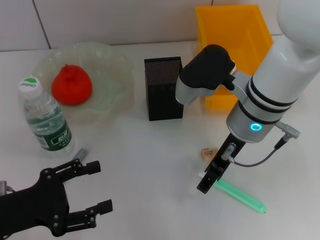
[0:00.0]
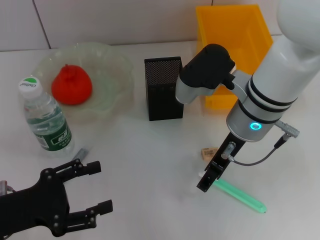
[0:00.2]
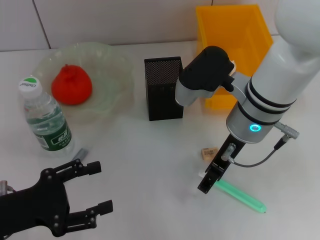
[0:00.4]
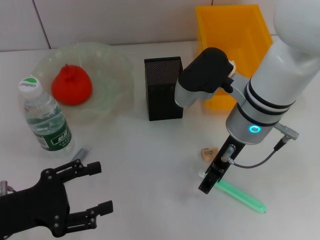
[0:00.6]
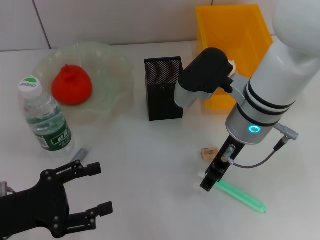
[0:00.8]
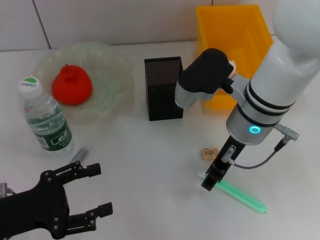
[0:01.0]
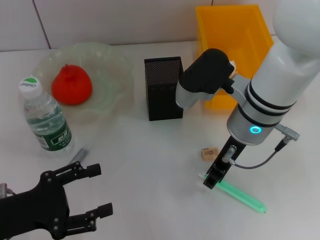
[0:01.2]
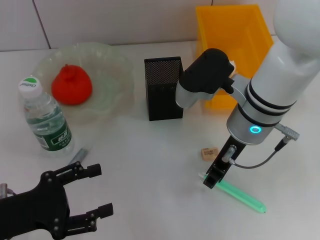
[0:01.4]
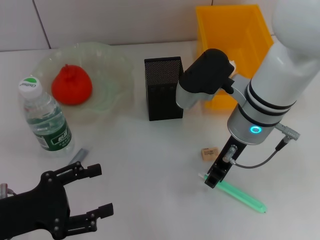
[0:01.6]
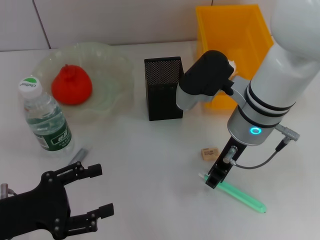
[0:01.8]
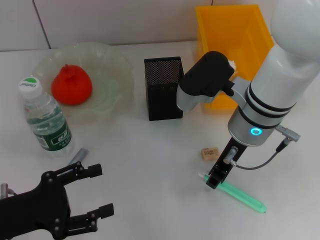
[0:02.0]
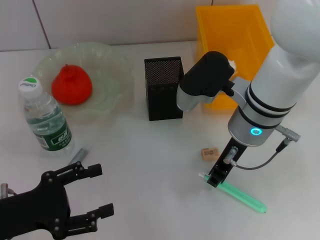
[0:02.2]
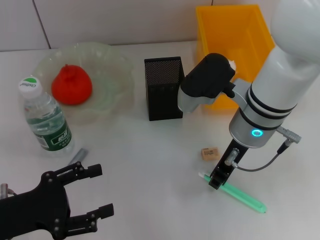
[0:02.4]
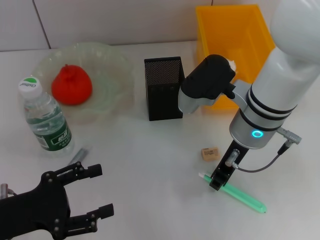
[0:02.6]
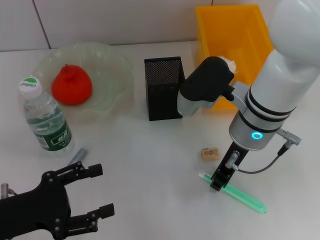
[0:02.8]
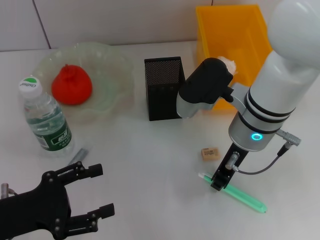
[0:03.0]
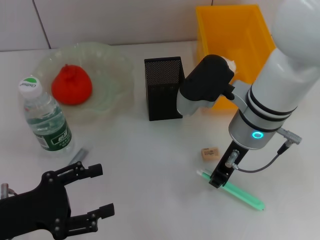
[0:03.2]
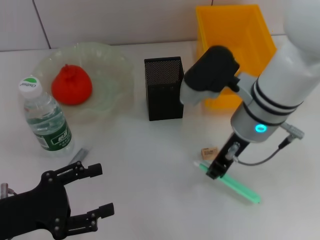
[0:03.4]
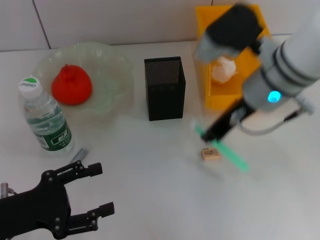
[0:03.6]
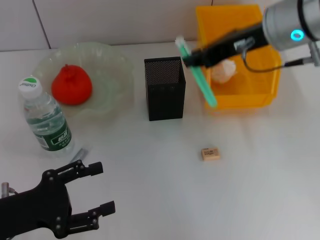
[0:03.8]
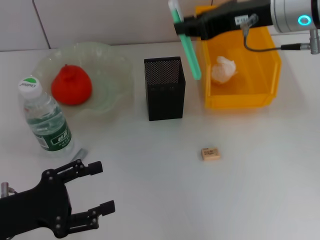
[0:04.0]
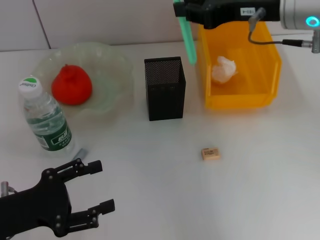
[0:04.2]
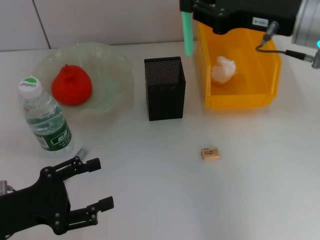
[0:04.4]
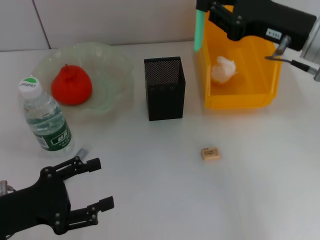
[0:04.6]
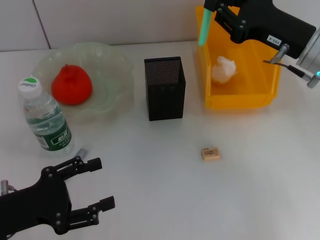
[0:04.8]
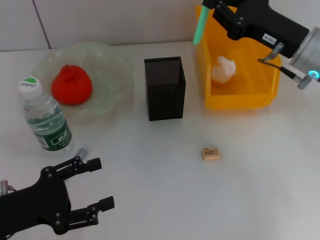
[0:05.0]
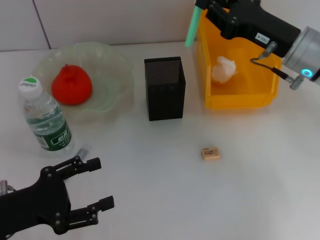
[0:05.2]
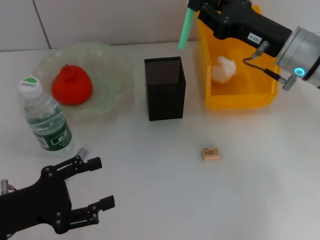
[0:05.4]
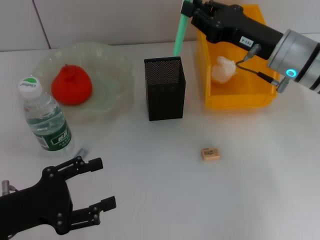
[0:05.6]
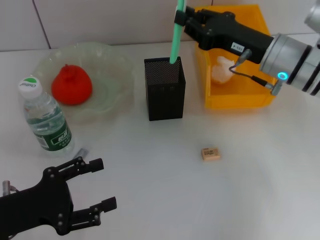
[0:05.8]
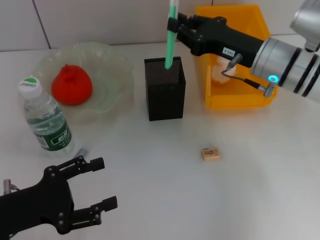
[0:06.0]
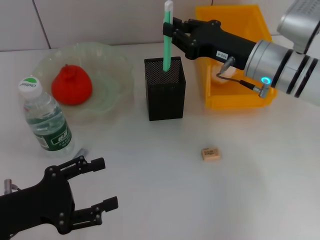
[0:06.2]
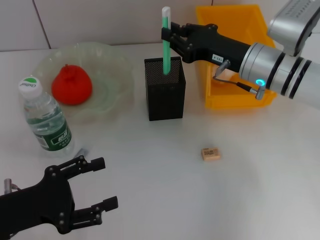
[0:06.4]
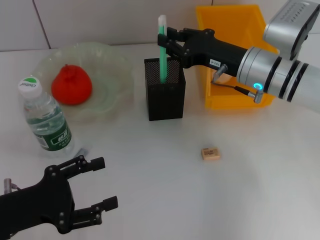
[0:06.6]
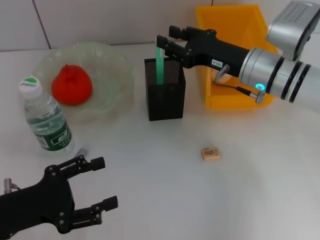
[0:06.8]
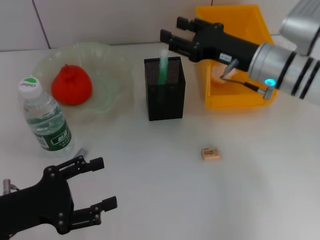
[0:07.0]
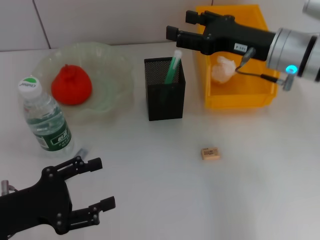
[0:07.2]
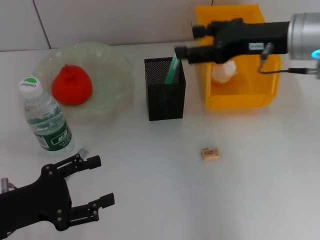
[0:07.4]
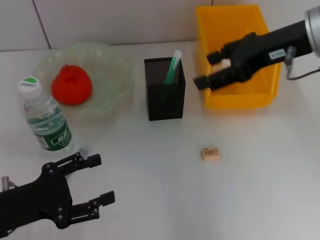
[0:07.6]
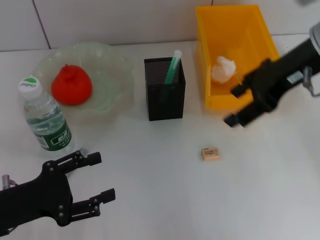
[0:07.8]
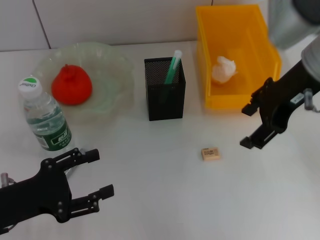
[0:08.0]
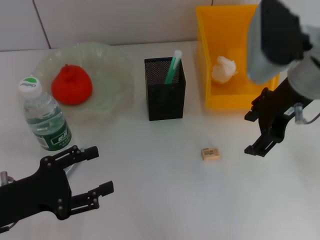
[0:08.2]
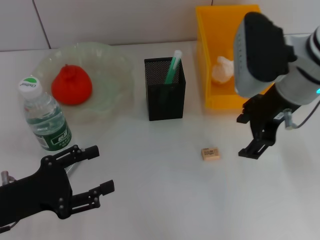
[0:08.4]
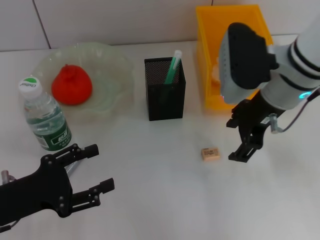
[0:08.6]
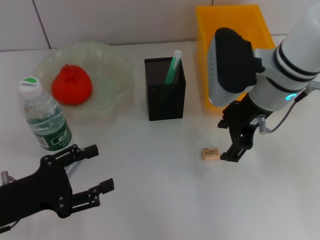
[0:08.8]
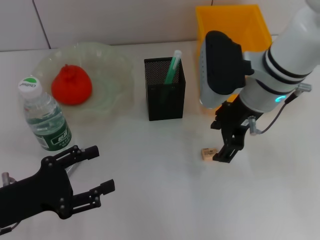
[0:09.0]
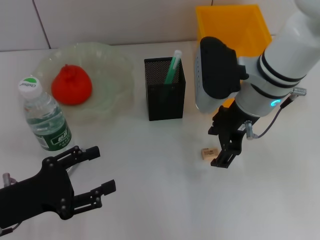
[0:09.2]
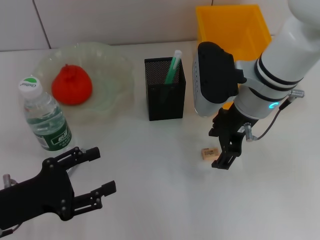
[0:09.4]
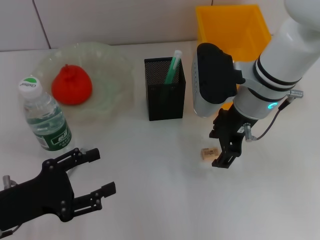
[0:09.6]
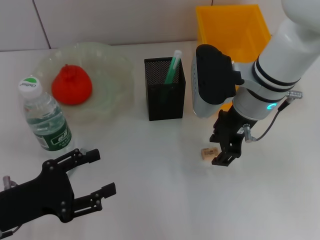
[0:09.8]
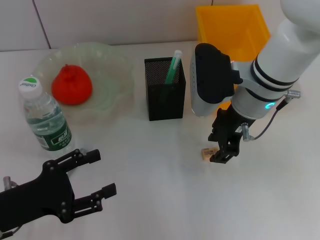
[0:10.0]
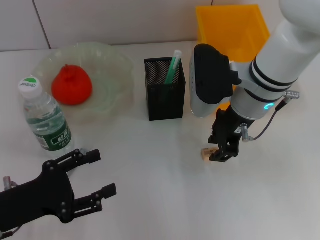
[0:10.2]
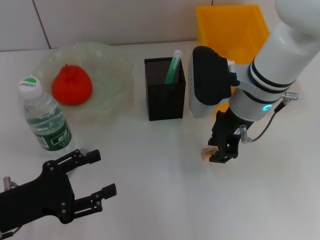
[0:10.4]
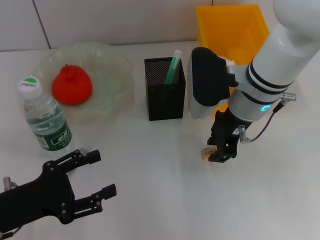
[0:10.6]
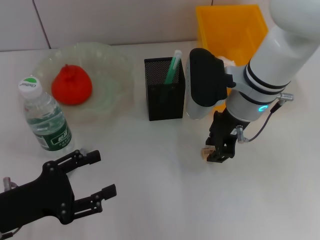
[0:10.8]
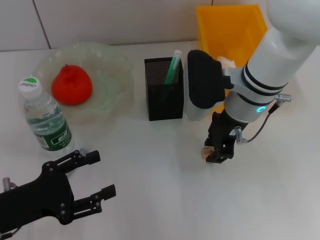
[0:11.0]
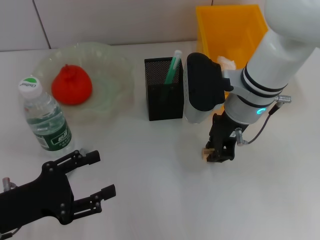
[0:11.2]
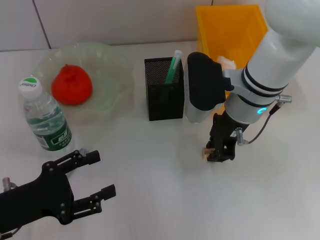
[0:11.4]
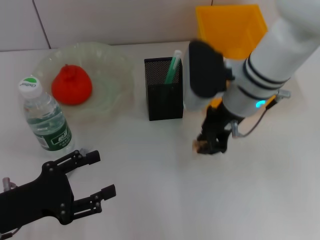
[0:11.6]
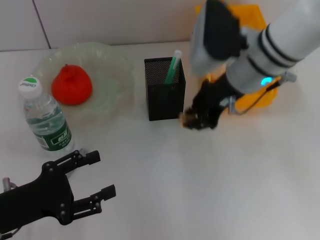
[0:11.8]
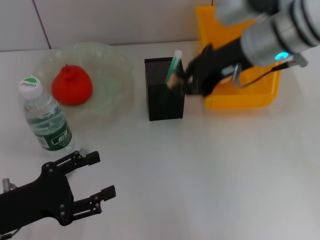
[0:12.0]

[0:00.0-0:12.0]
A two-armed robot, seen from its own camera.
Step, 0:00.0 to 0:02.6: Grab the blue utility knife with the right hand.
Step, 0:02.8 to 0:06.6: Place the blue utility knife into the pen holder with the right hand.
Step, 0:06.8 to 0:11.0: Grab the eraser with the right hand.
0:00.0 to 0:01.6: The right gripper closes.
0:01.6 to 0:03.0: The two grippers keep their place.
0:03.0 to 0:04.4: The right gripper travels to the right and upward by roughly 15 cm.
0:04.4 to 0:06.0: The right gripper heads downward, covering roughly 10 cm.
0:06.0 to 0:07.6: The right gripper goes some 10 cm upward, and opens.
0:07.6 to 0:09.0: The right gripper shifts some 10 cm downward and to the left.
0:09.0 to 0:10.4: The right gripper closes.
0:10.4 to 0:12.0: The right gripper goes approximately 10 cm upward.

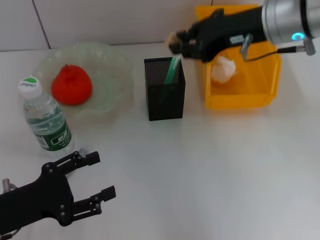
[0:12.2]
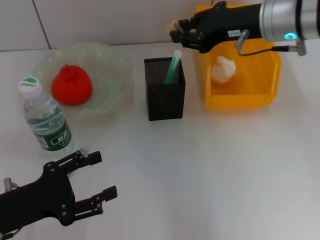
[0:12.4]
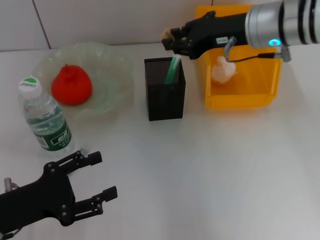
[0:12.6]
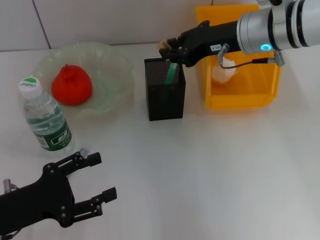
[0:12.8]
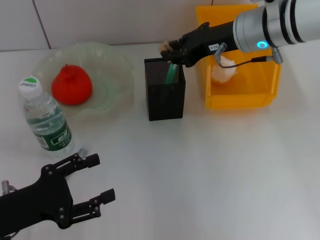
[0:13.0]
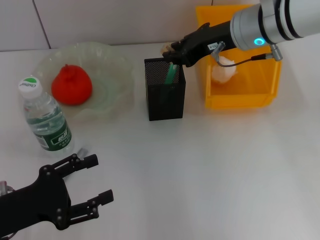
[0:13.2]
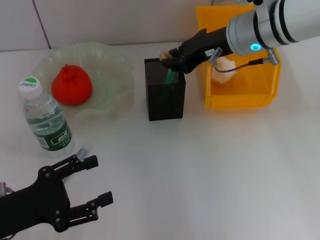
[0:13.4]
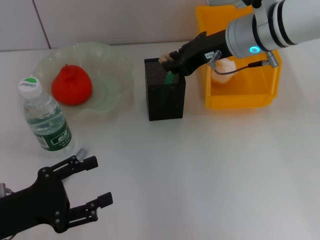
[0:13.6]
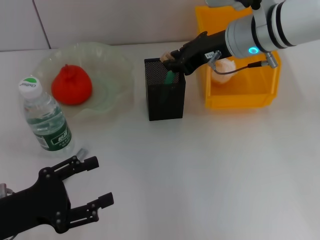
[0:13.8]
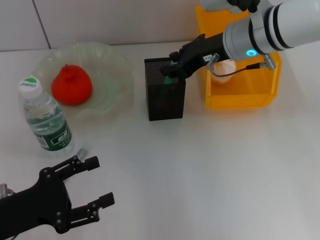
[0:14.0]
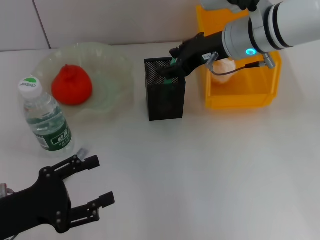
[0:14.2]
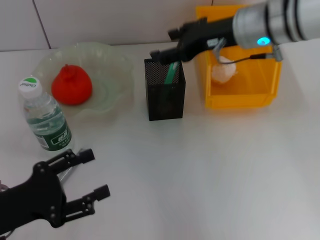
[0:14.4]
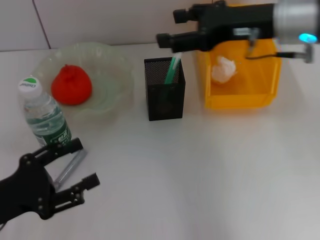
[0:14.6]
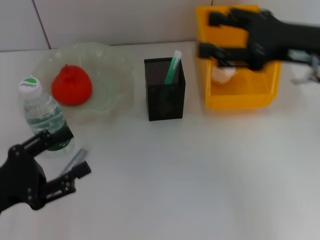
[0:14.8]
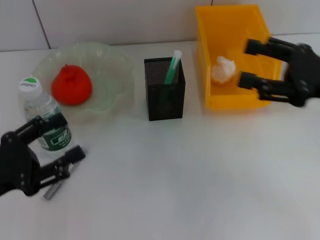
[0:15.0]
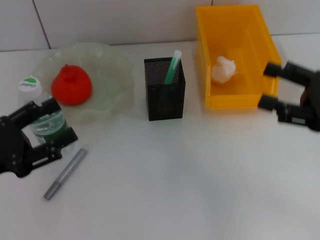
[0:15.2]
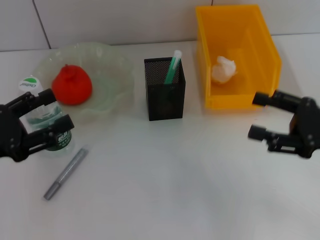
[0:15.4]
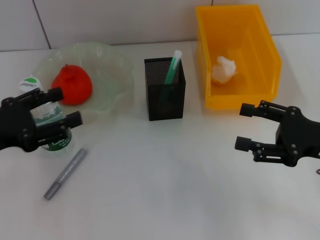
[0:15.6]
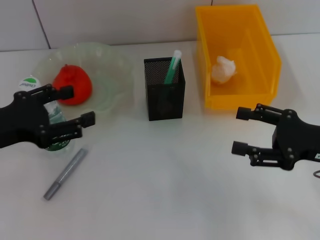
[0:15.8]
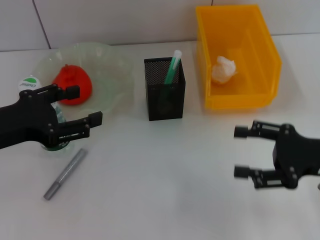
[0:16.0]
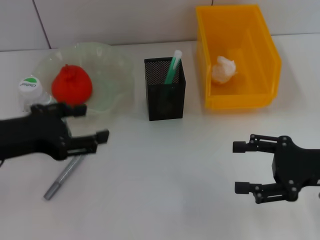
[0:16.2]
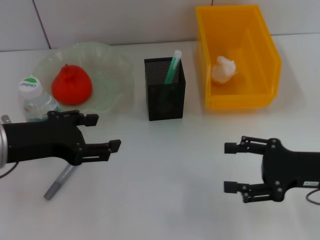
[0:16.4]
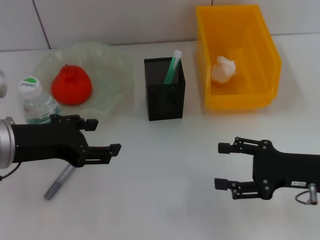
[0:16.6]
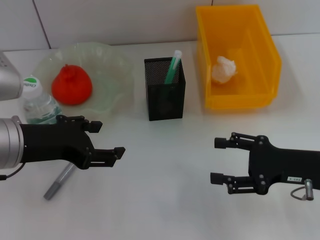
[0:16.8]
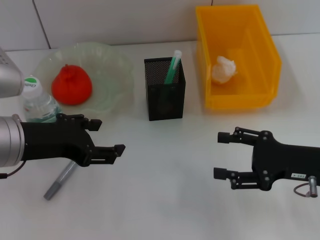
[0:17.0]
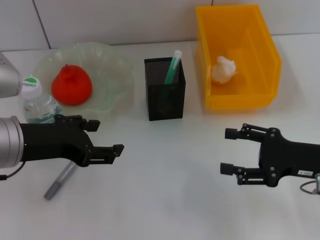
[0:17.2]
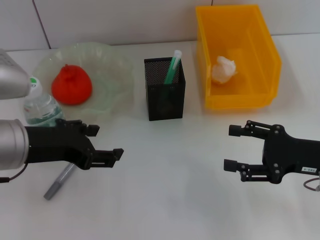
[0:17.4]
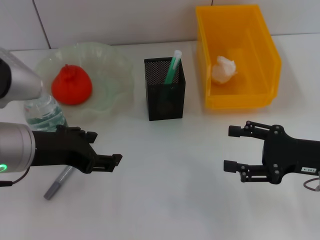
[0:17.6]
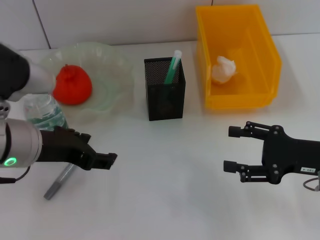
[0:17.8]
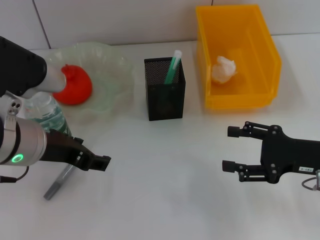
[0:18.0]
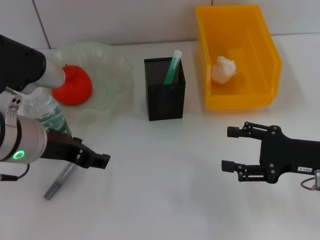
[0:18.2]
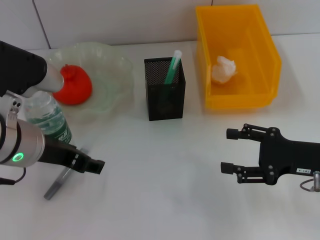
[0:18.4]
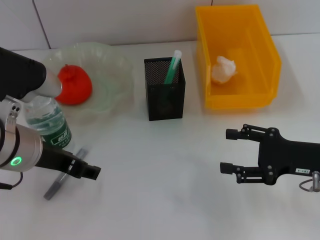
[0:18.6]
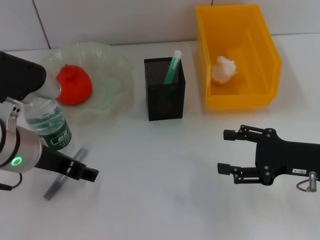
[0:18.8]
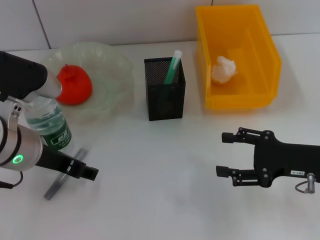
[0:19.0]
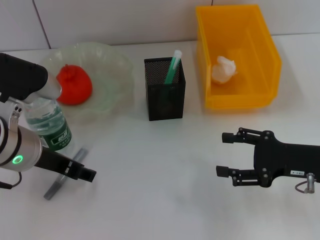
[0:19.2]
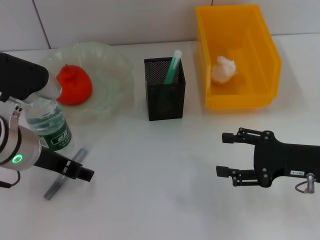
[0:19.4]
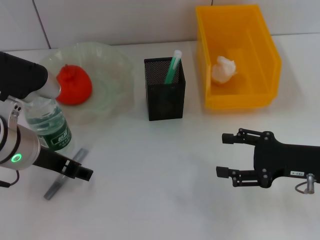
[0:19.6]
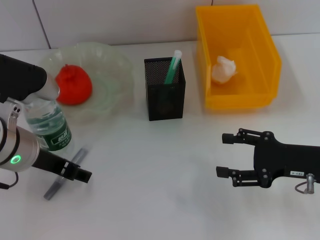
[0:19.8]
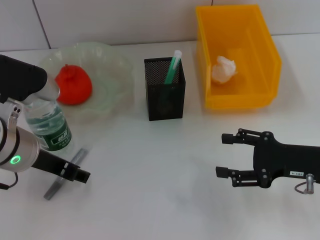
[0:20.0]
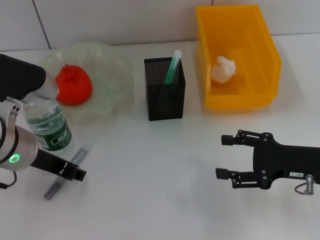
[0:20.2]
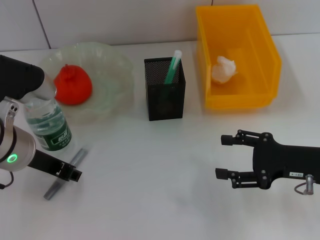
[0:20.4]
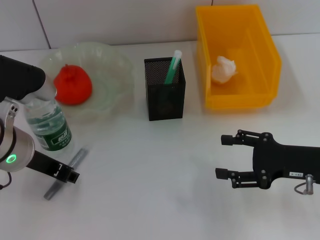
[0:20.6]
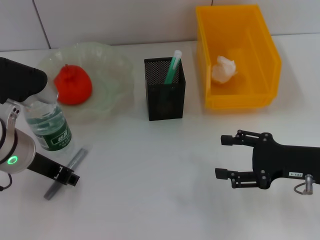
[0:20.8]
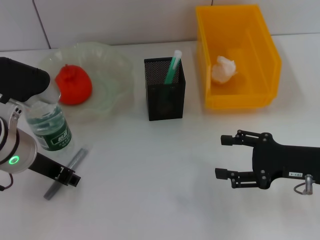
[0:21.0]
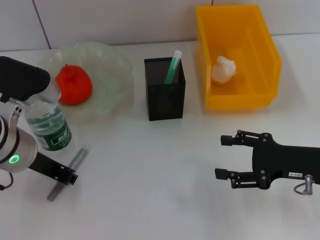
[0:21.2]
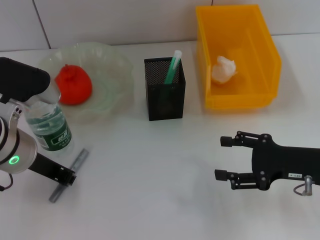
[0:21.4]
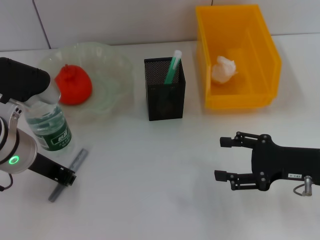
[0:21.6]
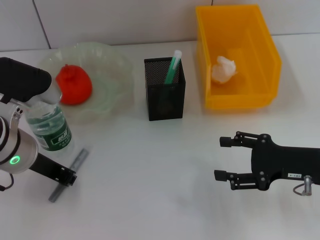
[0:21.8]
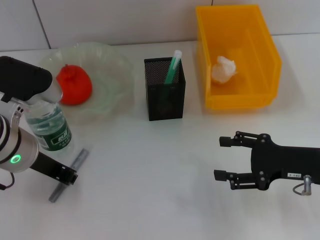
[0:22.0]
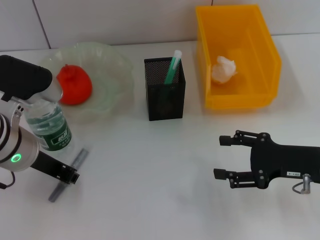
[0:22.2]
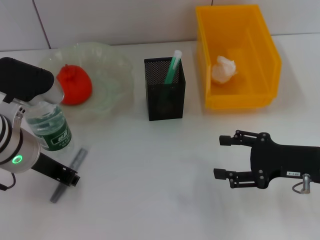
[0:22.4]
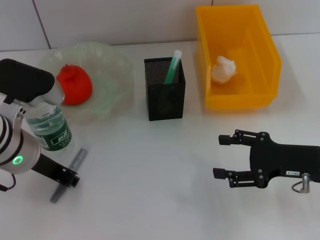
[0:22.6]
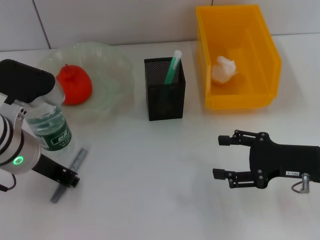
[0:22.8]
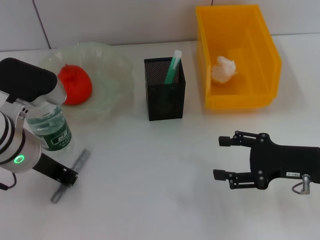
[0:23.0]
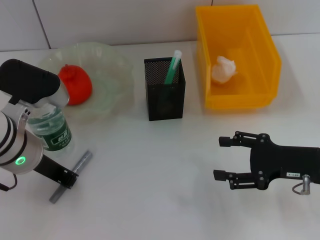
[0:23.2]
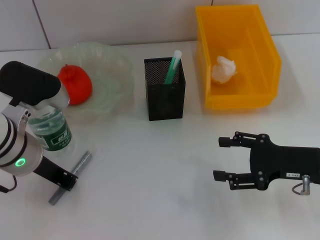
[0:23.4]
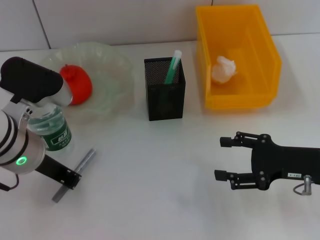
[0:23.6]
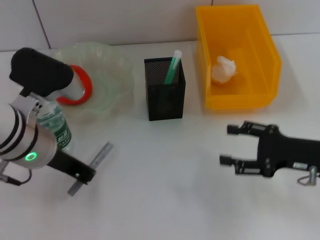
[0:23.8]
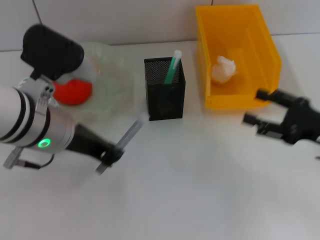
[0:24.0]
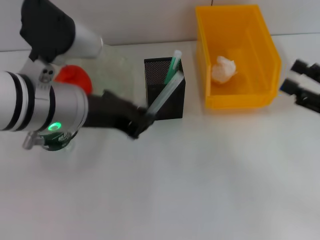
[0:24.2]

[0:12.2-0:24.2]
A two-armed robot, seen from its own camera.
Step, 0:12.2 to 0:14.0: Put the eraser into the pen holder with the right hand.
Step, 0:14.4 to 0:21.4: Grab the gray glue with the left hand.
0:12.2 to 0:13.8: The right gripper moves downward, some 5 cm.
0:13.8 to 0:15.2: The left gripper ends up some 5 cm from where it was. Meanwhile the right gripper travels to the right and backward by some 25 cm, and opens up.
0:15.2 to 0:16.6: The right gripper shifts roughly 5 cm downward. Meanwhile the left gripper heads to the right and upward, covering roughly 10 cm.
0:18.2 to 0:19.8: The grippers move only a little.
0:19.8 to 0:21.2: The left gripper closes.
0:21.2 to 0:22.6: Neither gripper changes place.
0:22.6 to 0:24.2: The right gripper is displaced to the right by some 5 cm; the left gripper is displaced upward and to the right by some 10 cm.
